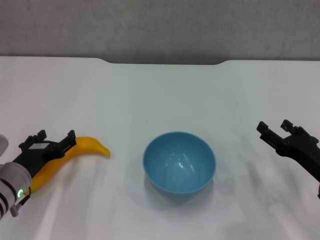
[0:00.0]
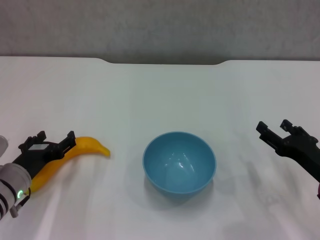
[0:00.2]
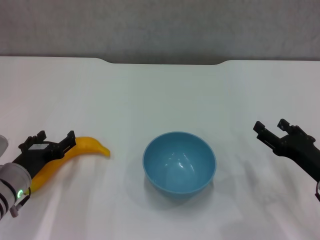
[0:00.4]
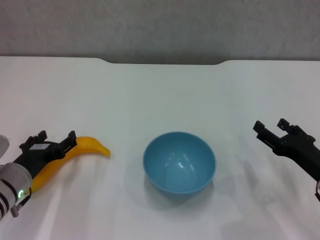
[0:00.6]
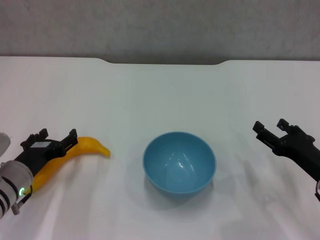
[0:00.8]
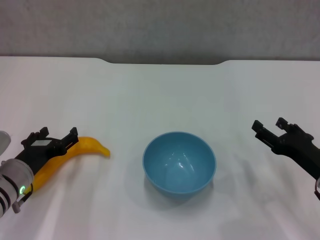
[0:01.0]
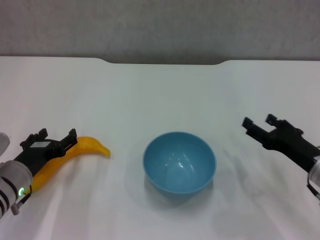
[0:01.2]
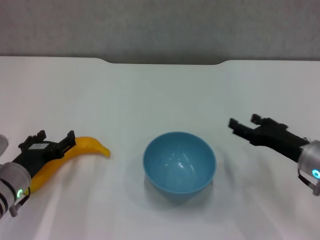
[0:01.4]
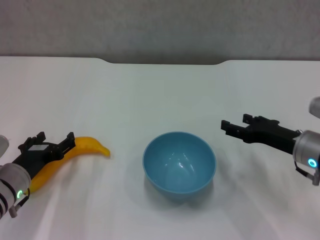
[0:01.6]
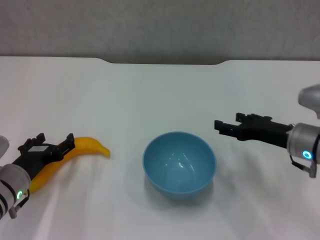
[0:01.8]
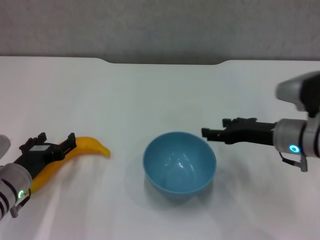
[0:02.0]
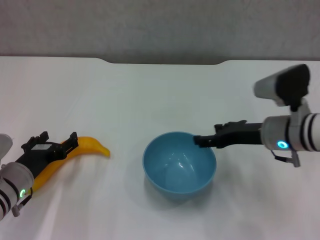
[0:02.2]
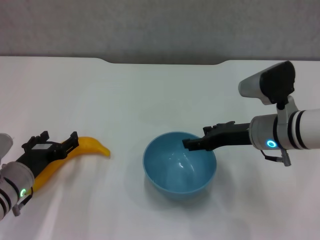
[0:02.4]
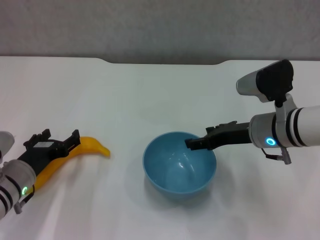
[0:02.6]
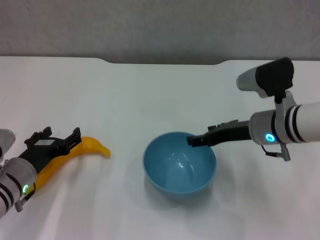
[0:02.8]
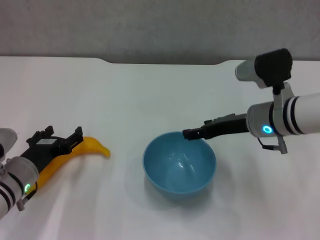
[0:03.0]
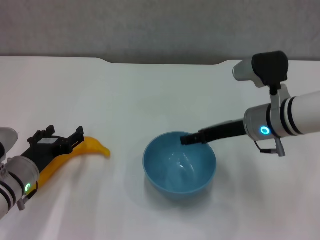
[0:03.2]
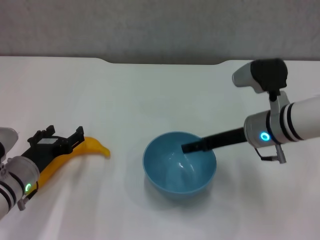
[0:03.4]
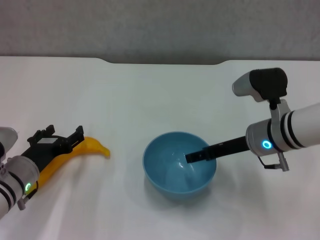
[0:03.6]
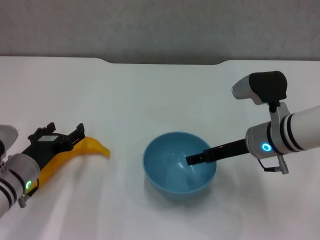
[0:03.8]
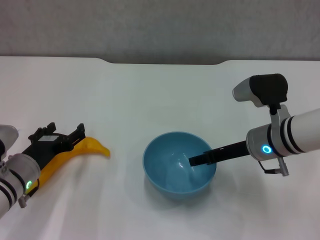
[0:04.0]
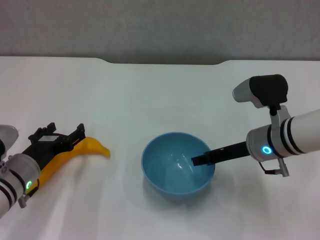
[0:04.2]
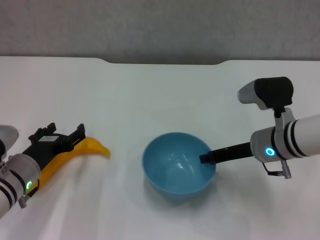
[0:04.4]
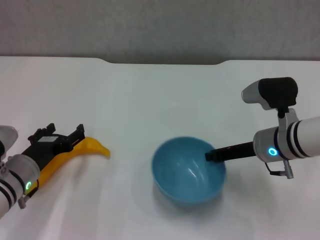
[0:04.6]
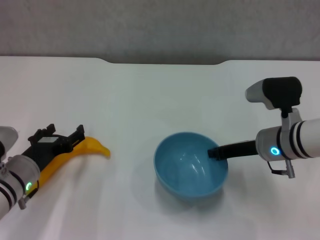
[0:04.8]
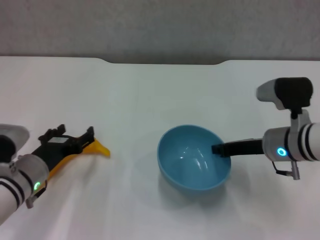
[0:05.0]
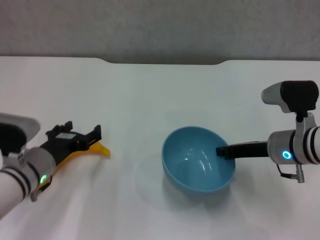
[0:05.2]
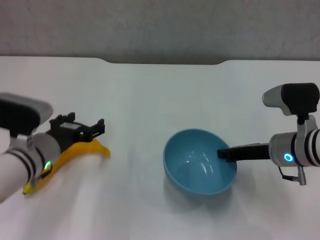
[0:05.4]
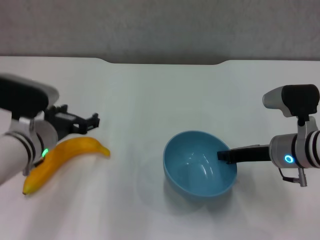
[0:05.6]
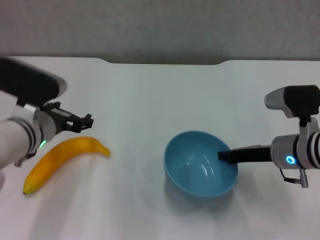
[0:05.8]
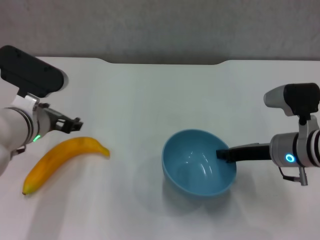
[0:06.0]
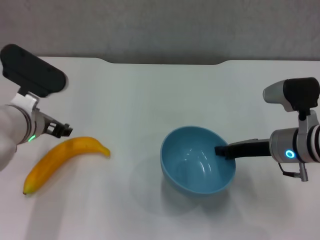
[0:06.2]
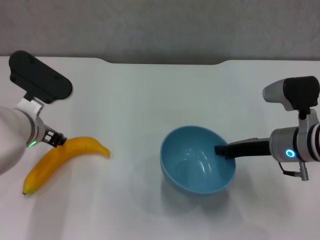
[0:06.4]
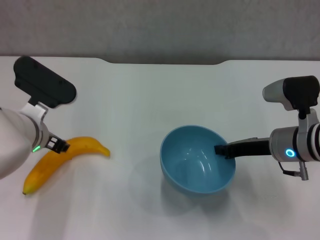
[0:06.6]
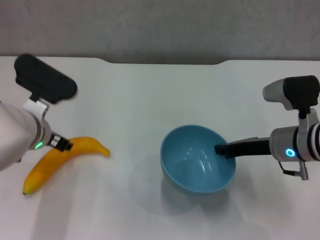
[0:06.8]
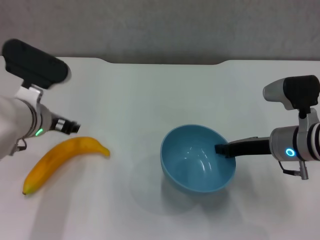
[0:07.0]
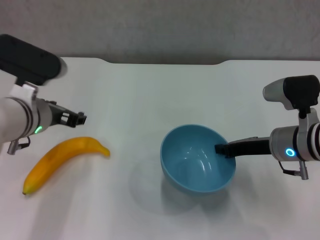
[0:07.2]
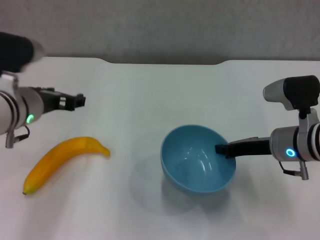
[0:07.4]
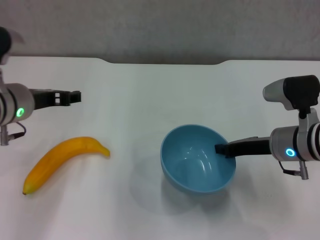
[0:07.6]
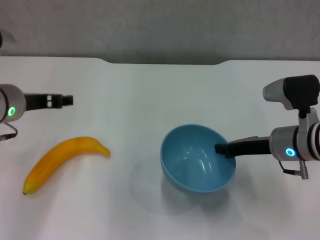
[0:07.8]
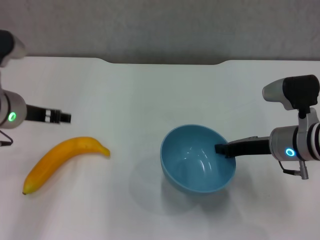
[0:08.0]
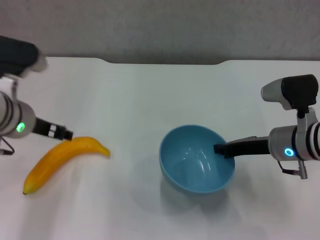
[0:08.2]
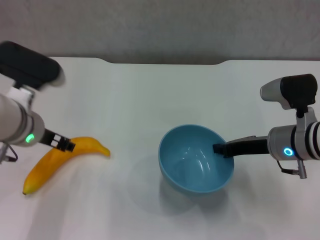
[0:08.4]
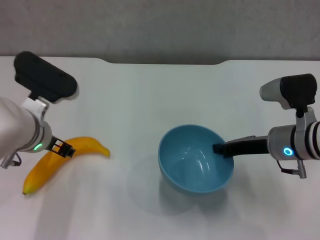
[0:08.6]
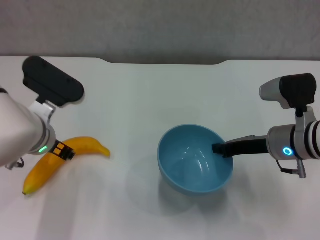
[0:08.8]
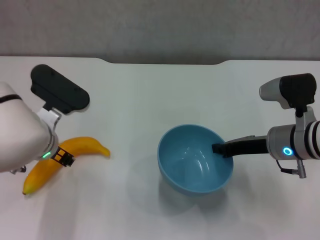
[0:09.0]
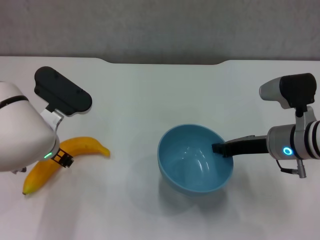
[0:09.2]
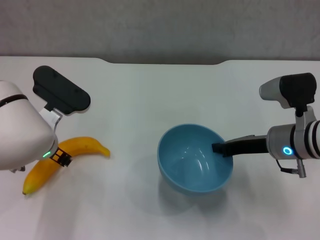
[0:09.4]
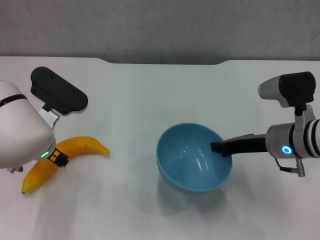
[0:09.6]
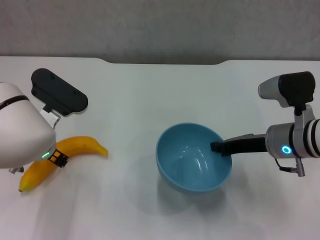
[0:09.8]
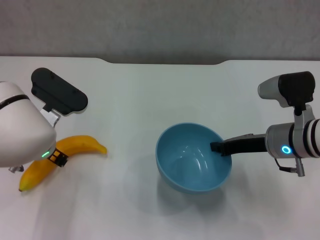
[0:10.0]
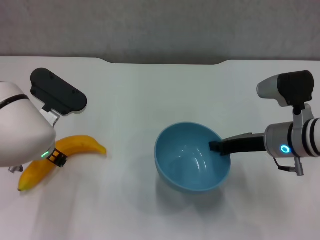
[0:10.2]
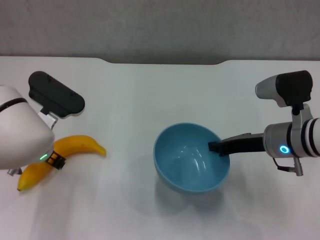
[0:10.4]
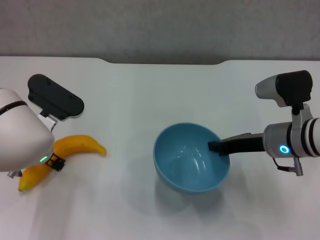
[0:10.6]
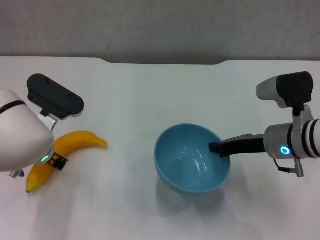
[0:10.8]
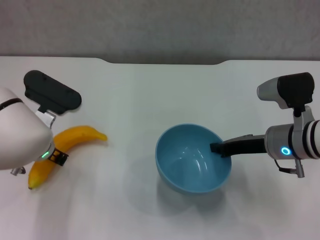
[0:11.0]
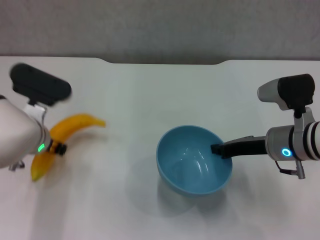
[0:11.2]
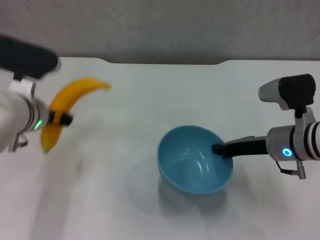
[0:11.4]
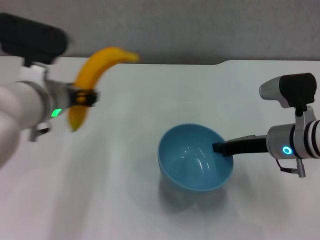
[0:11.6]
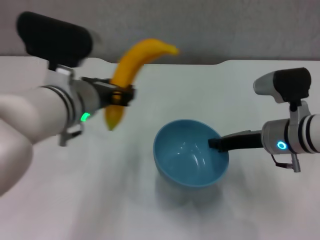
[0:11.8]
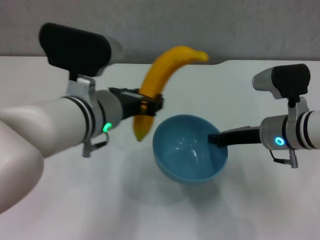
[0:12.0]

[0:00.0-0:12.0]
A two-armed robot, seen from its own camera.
Step, 0:00.0 to 0:04.6: Grasp the blue bowl with right gripper.
Step, 0:05.0 to 0:06.2: Lift the blue bowl with right gripper.
Step, 0:06.4 to 0:10.6: Grasp the banana with left gripper.
0:00.0 to 0:01.6: The right gripper goes roughly 5 cm forward.
0:01.6 to 0:03.0: The right gripper heads to the left and forward, covering approximately 10 cm.
0:03.0 to 0:04.4: The right gripper closes up.
0:04.4 to 0:06.0: The right gripper closes up; the left gripper goes roughly 10 cm upward.
0:07.6 to 0:09.0: The left gripper goes approximately 5 cm downward.
0:09.0 to 0:10.4: There are only small adjustments of the grippers.
0:10.4 to 0:12.0: The left gripper heads upward, to the right and backward, covering some 15 cm.

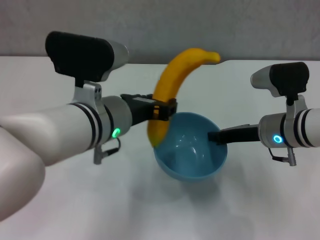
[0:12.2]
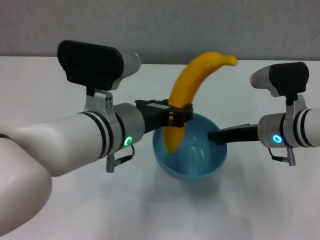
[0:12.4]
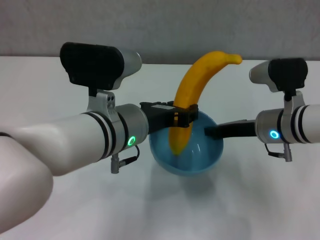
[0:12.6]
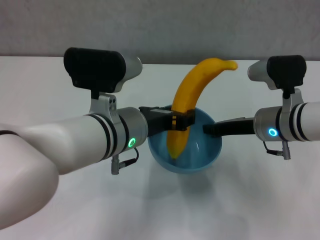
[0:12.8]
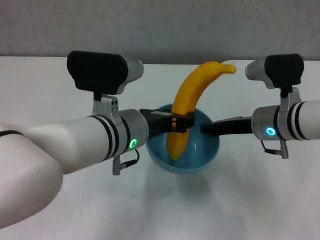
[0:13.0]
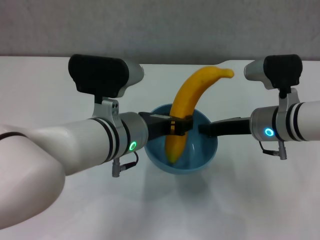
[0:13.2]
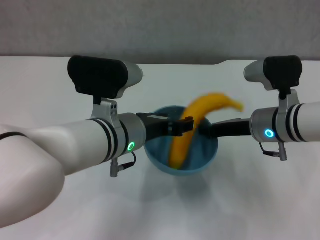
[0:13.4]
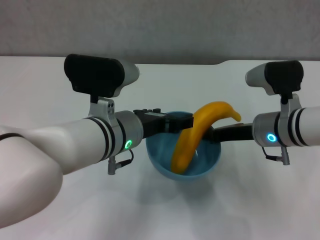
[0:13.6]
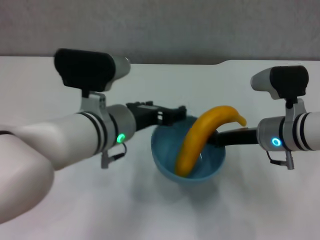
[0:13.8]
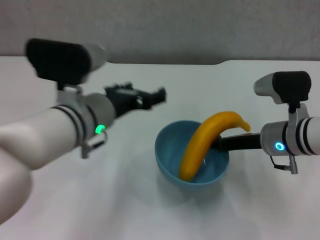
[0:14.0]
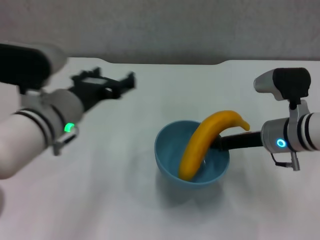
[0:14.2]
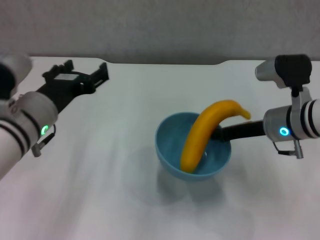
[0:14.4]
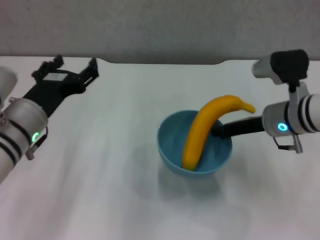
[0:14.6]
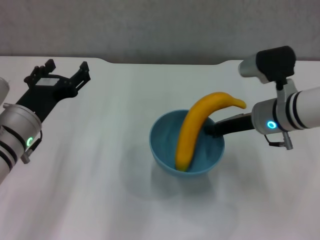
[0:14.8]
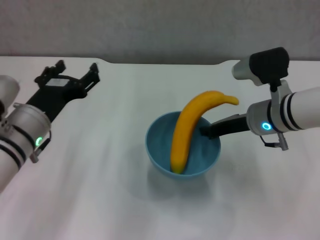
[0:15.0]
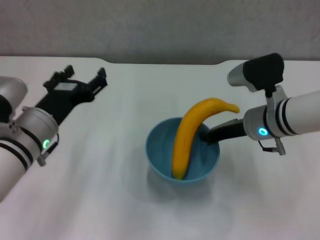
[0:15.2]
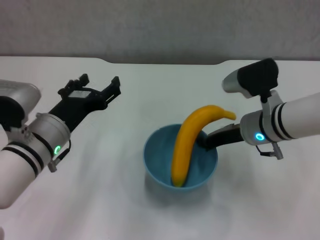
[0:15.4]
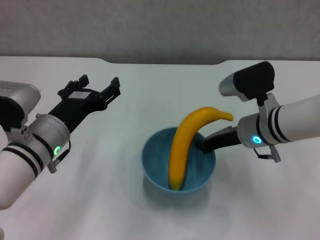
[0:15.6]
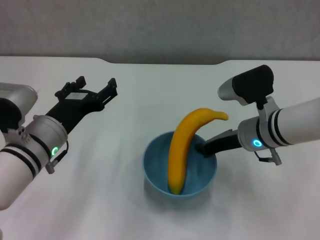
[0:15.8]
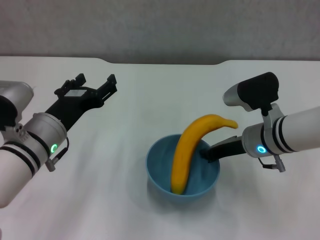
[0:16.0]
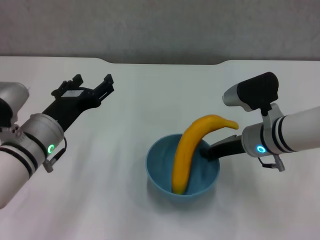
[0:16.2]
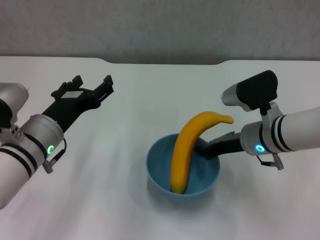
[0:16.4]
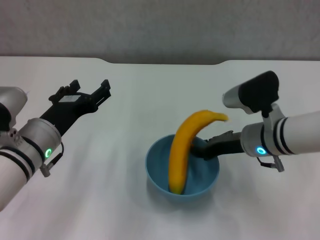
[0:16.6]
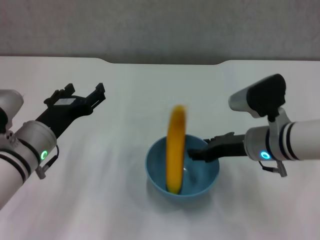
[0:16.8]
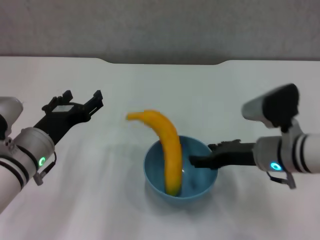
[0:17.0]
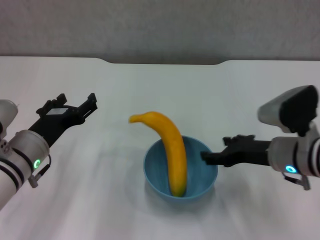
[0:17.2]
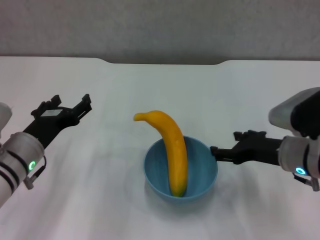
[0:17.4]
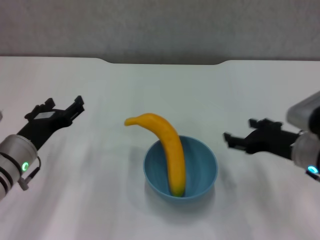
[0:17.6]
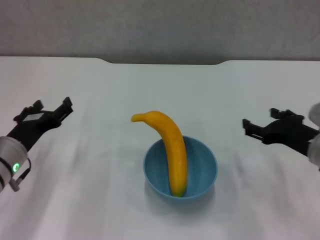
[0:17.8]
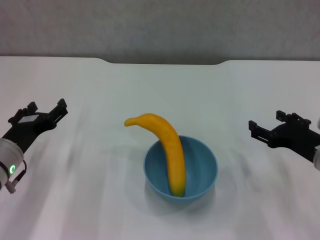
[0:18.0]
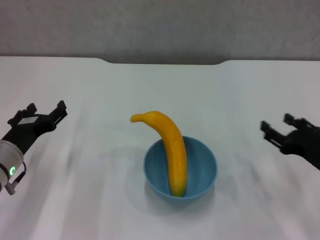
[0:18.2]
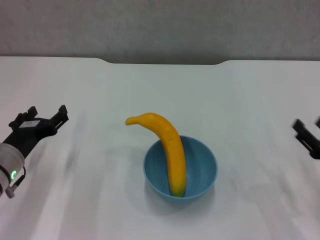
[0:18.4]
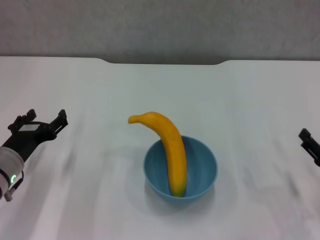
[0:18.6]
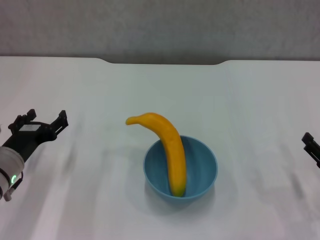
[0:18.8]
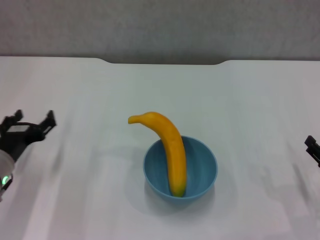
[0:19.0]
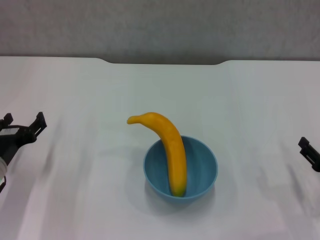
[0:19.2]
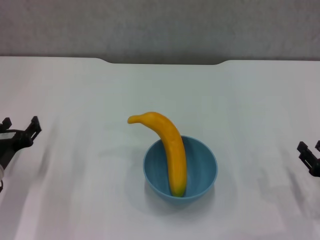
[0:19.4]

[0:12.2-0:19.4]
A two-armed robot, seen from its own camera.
Step, 0:13.6 to 0:17.0: Place the bowl on the table with right gripper.
0:13.6 to 0:15.0: The left gripper travels to the left by approximately 10 cm, and opens its fingers.
0:16.6 to 0:18.0: The right gripper shifts roughly 10 cm to the right and backward, and opens up. Meanwhile the left gripper travels to the left by about 5 cm.
0:18.0 to 0:19.4: The right gripper heads downward, to the right and backward, covering about 10 cm.
